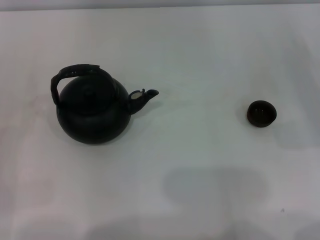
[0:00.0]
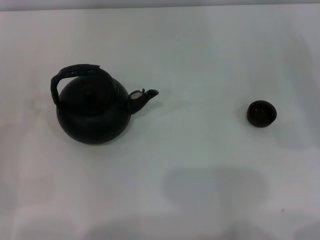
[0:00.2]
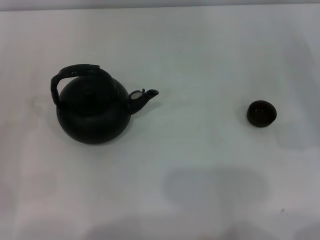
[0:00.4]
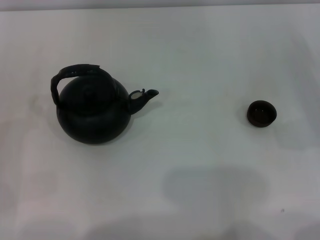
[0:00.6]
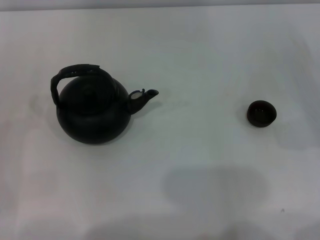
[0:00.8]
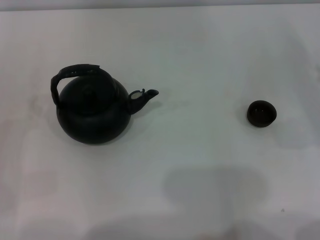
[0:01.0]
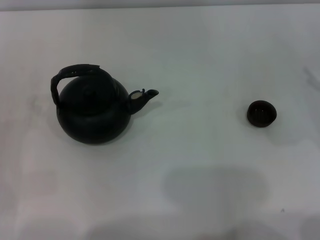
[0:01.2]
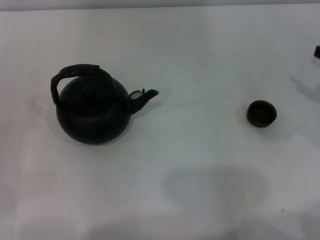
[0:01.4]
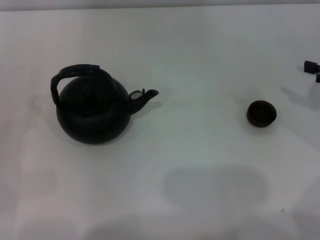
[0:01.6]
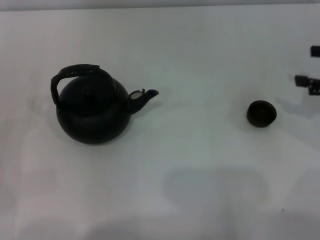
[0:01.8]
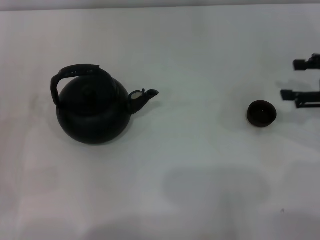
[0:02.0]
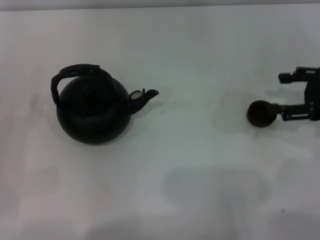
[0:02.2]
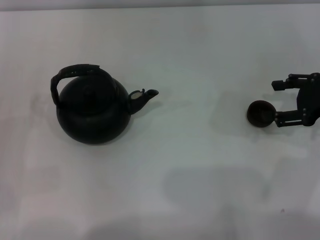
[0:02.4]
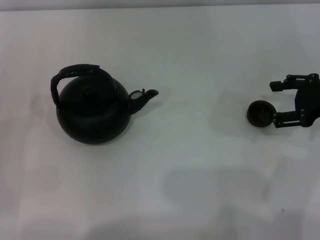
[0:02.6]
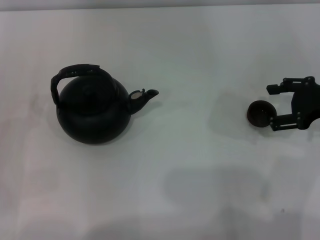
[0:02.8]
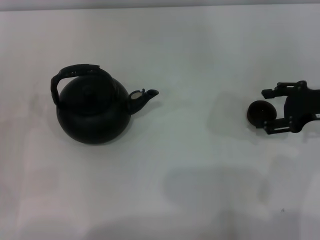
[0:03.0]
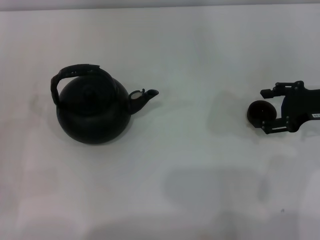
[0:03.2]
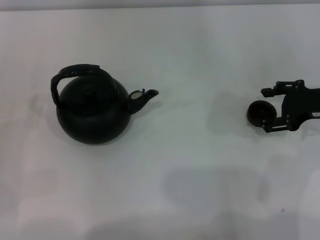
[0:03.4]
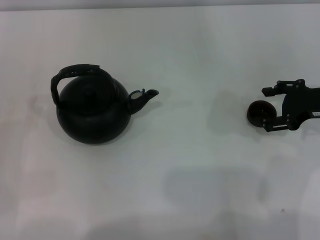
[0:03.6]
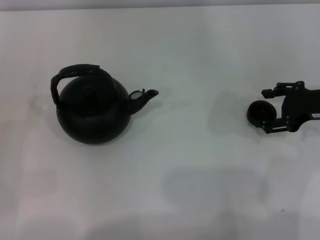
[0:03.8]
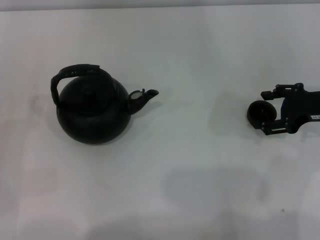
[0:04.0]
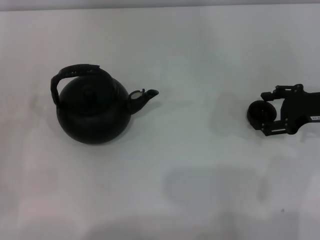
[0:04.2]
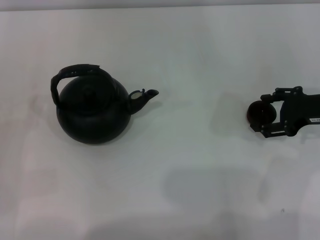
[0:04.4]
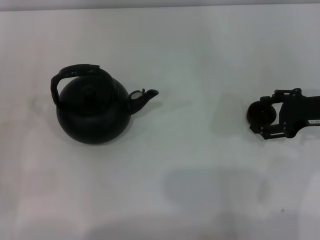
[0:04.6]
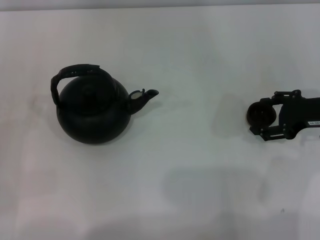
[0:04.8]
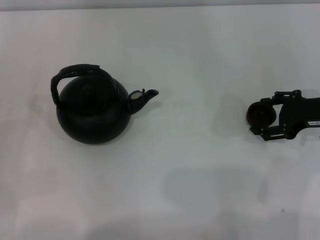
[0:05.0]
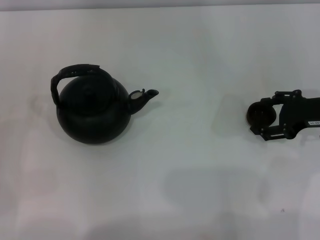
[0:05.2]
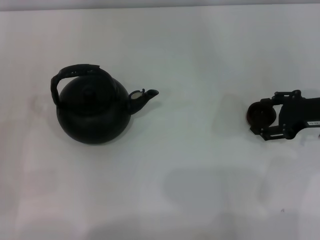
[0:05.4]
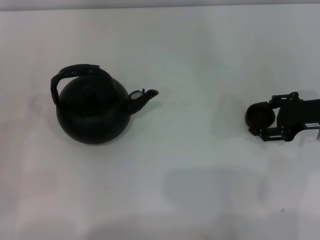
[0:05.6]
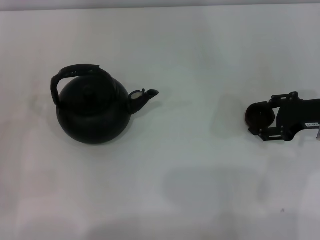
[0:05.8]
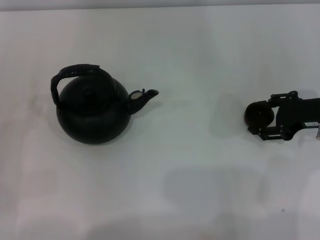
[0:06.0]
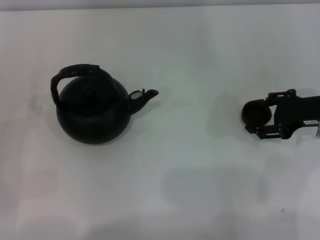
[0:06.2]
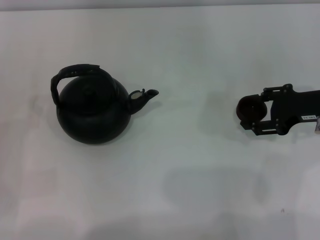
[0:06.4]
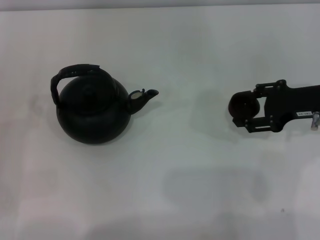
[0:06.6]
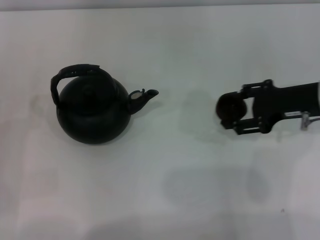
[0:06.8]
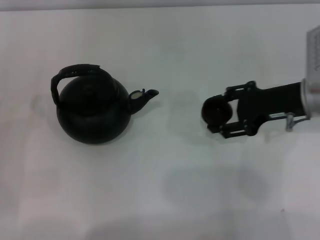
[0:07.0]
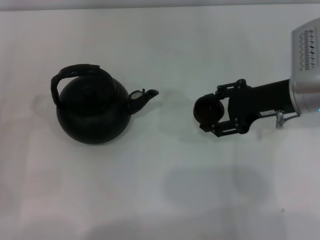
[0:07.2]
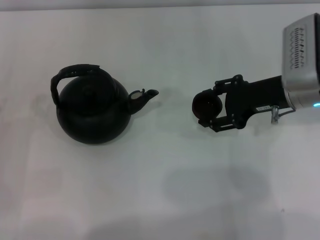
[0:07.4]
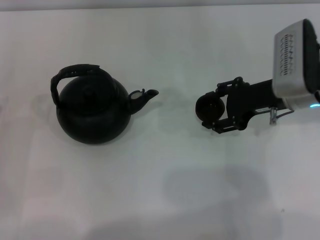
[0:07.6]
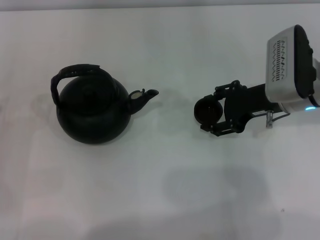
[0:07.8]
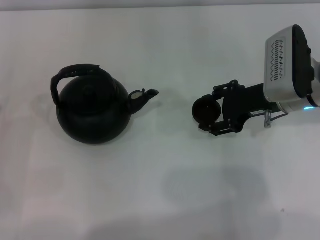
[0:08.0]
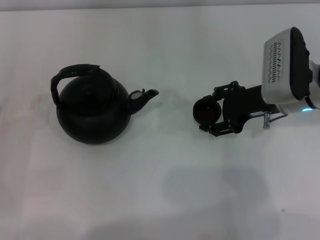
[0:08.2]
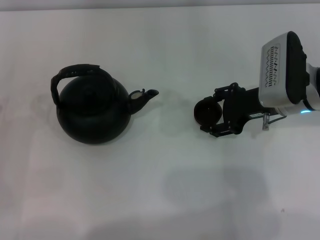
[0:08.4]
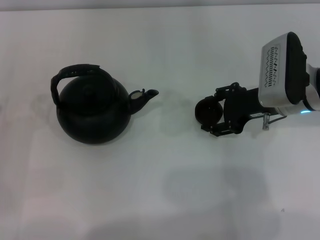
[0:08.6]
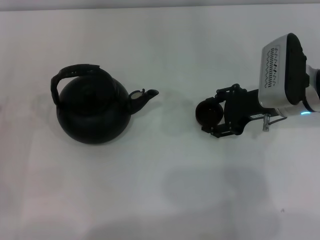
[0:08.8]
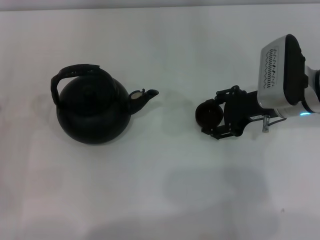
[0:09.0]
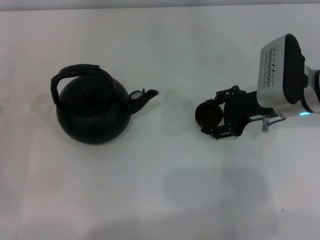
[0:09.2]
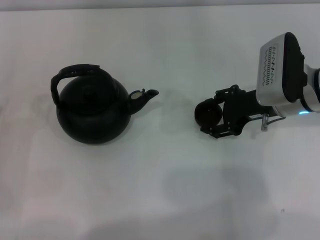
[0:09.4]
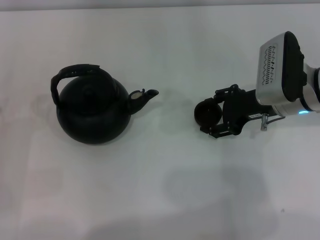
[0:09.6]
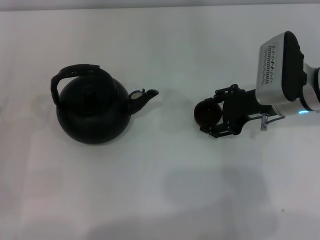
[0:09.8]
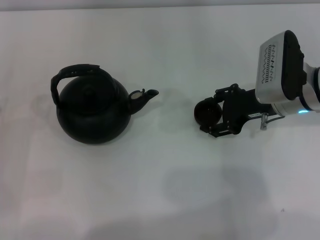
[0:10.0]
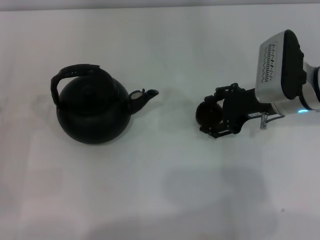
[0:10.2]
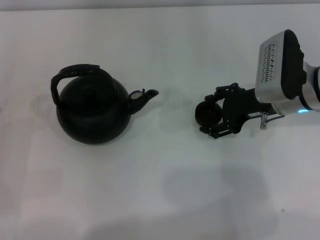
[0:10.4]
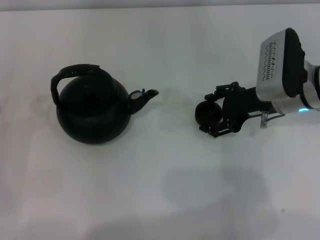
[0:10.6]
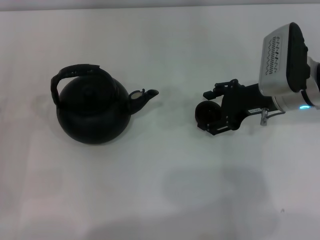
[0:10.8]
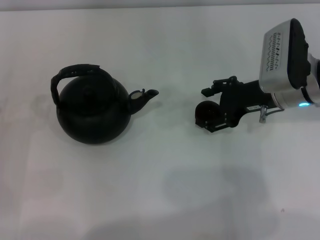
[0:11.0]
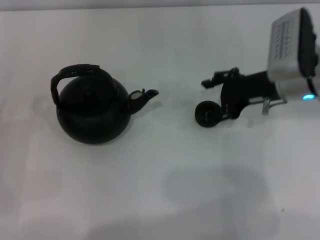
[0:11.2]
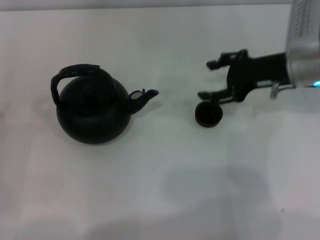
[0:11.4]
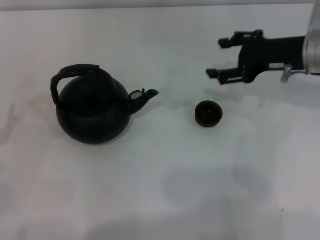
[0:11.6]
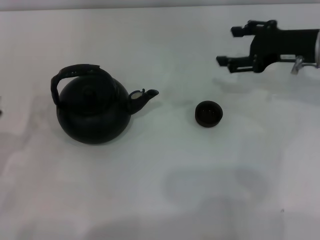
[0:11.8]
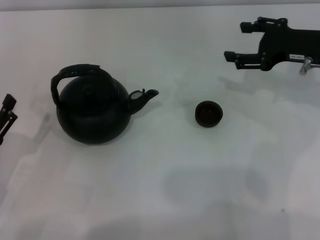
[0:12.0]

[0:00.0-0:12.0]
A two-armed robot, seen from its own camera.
Task of the whole recording: Grasp the handle of the teapot with one hand and pour tea into the teacup.
Step, 0:00.0 to 0:06.4: Pick up the teacup with the right gripper.
Step, 0:06.6 to 0:11.4: Place the teacup in the center of view with the right gripper.
0:00.0 to 0:01.6: The right gripper goes approximately 5 cm upward.
0:01.6 to 0:03.0: The right gripper is displaced to the left by roughly 5 cm.
0:03.0 to 0:04.4: There are only small adjustments of the grippers.
0:04.4 to 0:06.0: The right gripper closes up.
0:06.0 to 0:07.6: The right gripper is displaced to the left by roughly 10 cm.
0:07.6 to 0:09.0: The grippers stay close to where they were, moving slightly.
0:09.0 to 0:10.4: The right gripper opens up.
0:10.4 to 0:12.0: The right gripper heads to the right, covering roughly 5 cm.

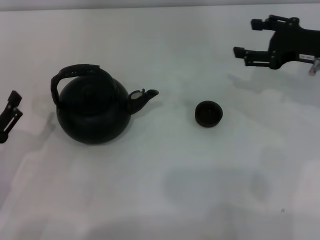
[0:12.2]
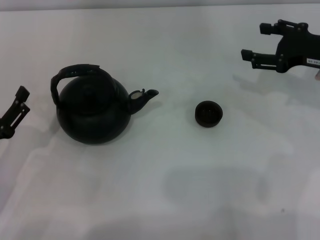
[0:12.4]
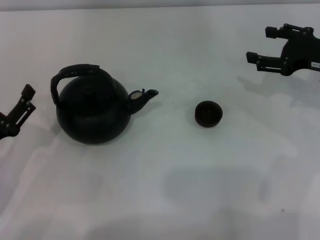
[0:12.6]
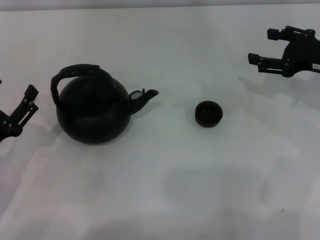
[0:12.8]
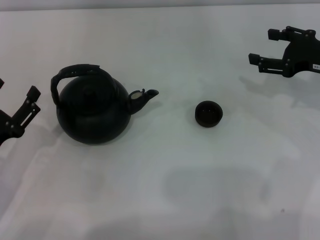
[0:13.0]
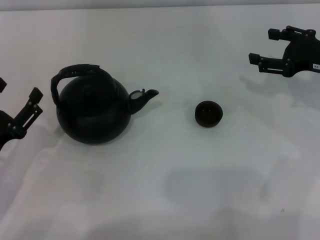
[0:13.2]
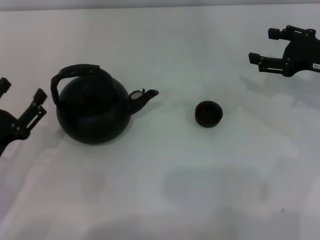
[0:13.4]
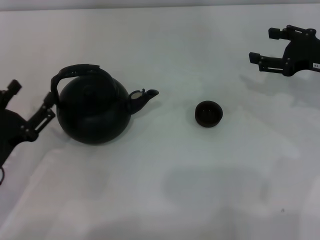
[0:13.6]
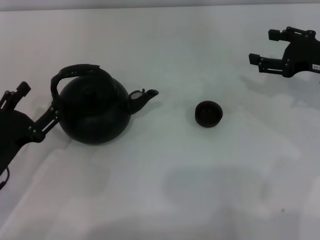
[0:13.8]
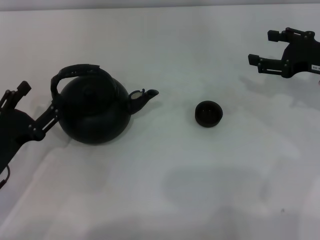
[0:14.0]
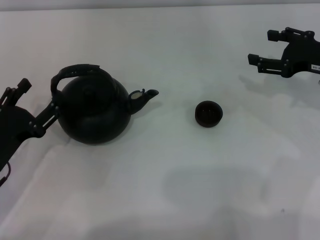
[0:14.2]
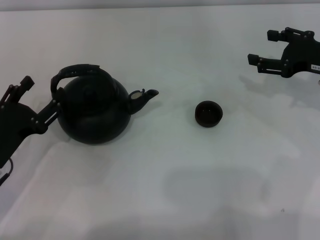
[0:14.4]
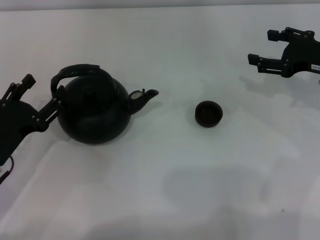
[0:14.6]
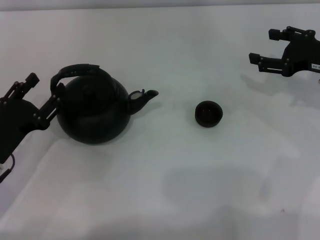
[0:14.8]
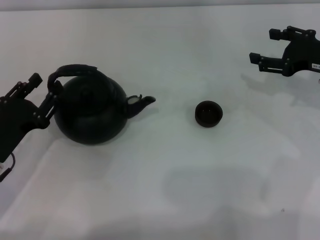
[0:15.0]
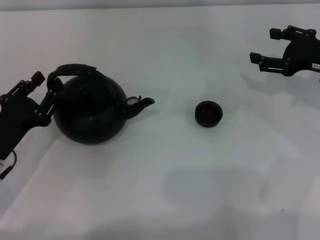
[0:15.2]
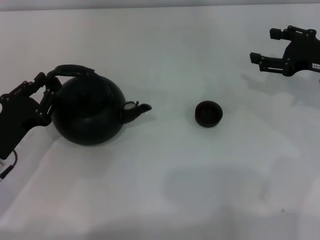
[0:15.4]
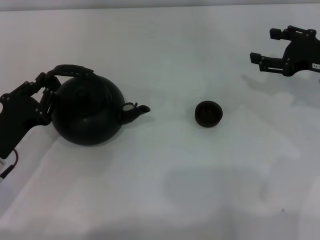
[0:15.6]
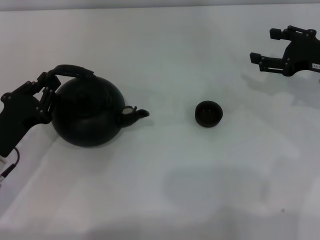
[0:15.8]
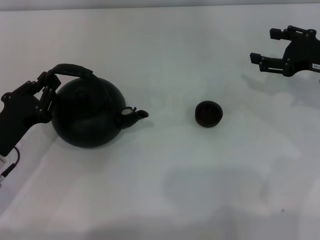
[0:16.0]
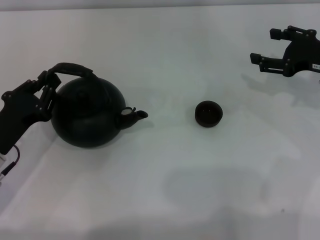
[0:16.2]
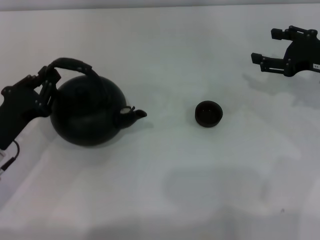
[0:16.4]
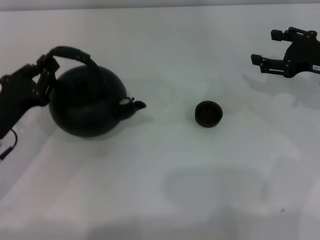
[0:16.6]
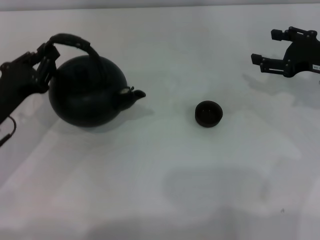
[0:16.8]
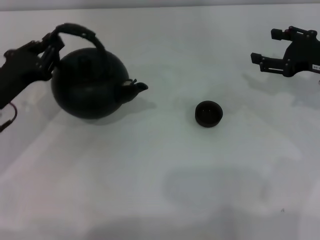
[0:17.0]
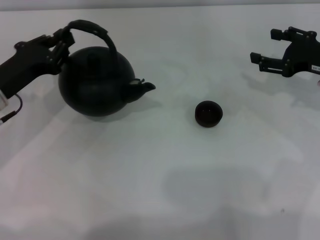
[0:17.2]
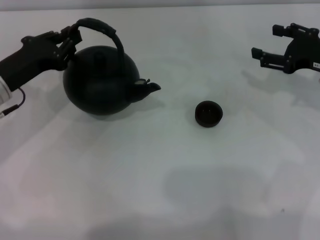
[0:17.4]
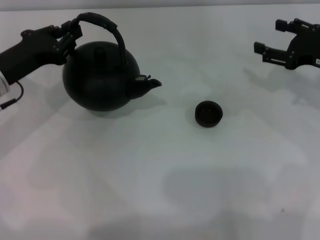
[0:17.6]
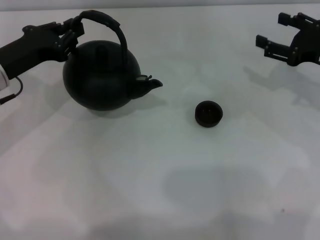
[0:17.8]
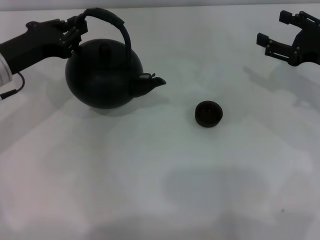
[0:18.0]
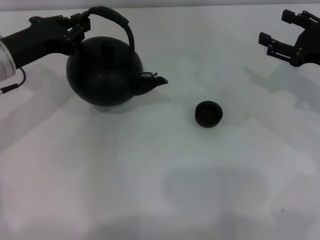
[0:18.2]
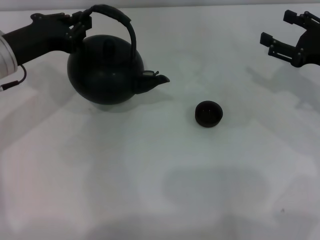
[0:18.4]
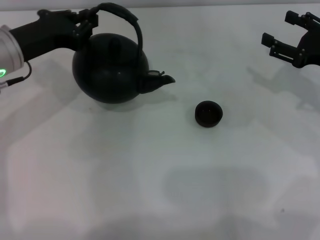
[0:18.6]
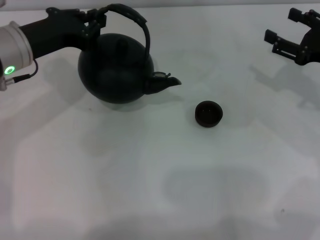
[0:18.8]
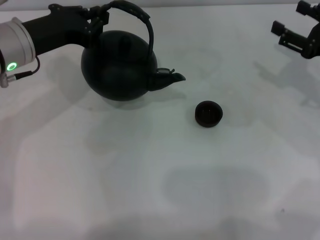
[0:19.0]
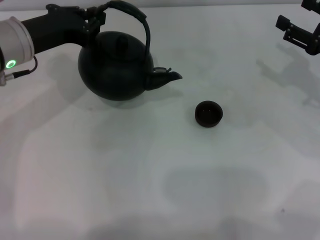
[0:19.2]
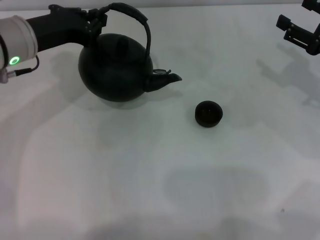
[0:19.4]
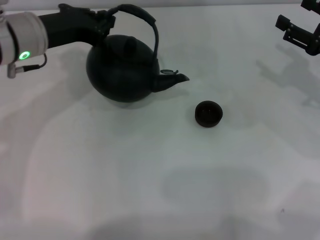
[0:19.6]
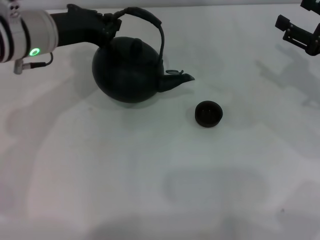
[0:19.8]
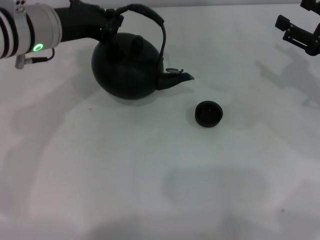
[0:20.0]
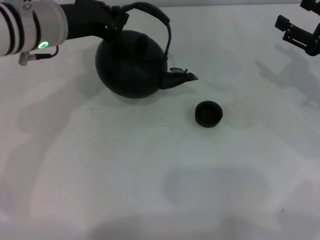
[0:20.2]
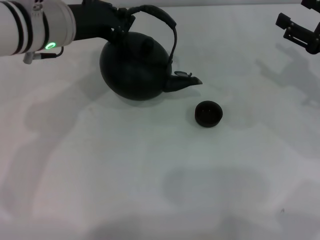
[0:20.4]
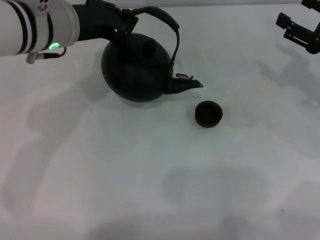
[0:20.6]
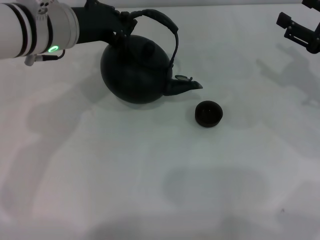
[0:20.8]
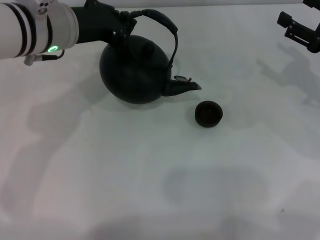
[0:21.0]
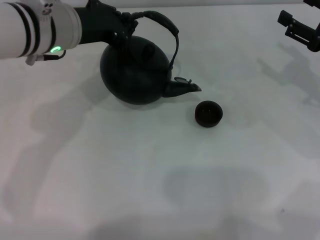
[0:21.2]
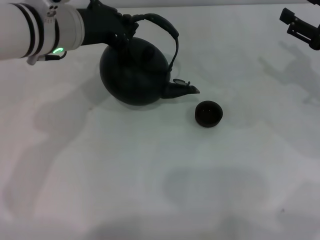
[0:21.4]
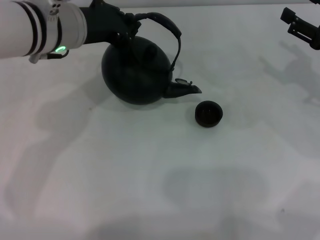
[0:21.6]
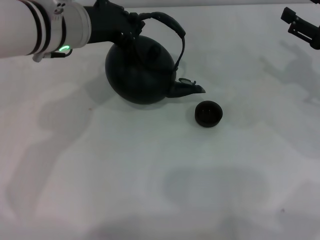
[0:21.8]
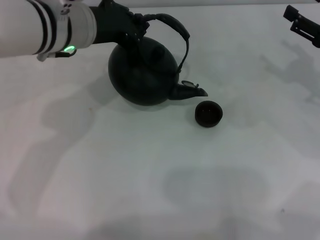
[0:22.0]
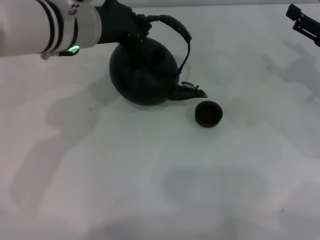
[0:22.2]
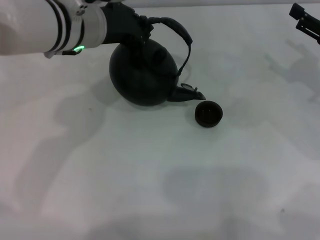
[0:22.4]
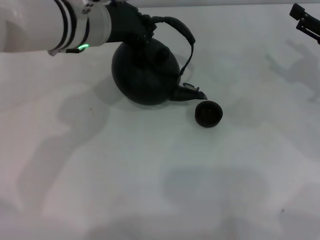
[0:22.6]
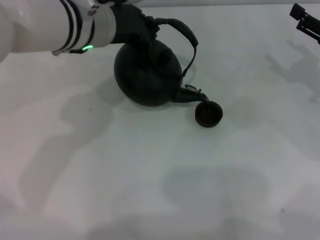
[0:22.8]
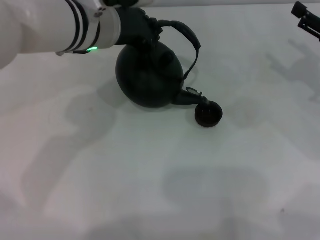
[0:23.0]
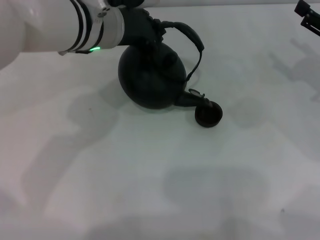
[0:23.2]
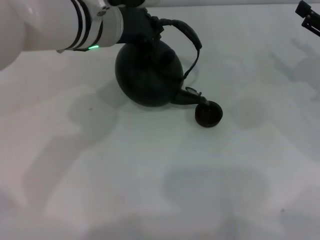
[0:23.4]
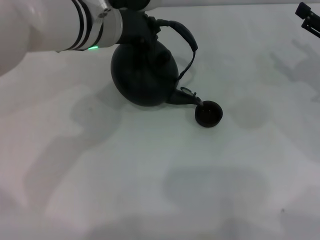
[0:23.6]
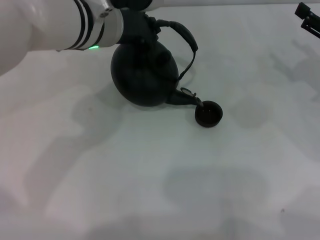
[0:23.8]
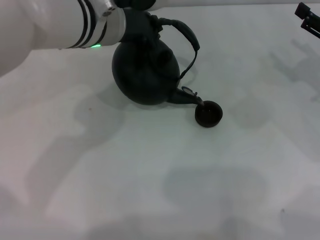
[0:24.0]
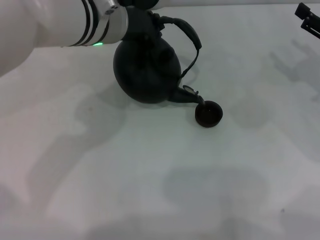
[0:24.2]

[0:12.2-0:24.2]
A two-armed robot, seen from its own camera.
Task of the whole recording: Grasp the handle of the teapot with one hand and pour tea into the teacup.
Step, 0:12.2 to 0:19.0: Pick up the teapot with the left gripper.
0:12.2 to 0:13.8: The grippers move only a little.
0:13.8 to 0:15.2: The left gripper closes up.
0:15.2 to 0:16.6: The left gripper closes.
0:16.6 to 0:18.2: The left gripper moves forward and upward, approximately 15 cm.
0:18.2 to 0:19.8: The left gripper heads to the right, covering roughly 5 cm.
0:19.8 to 0:21.2: The grippers move only a little.
0:21.2 to 0:22.6: The grippers stay close to where they were, moving slightly.
0:22.6 to 0:24.2: The grippers make only small movements.
